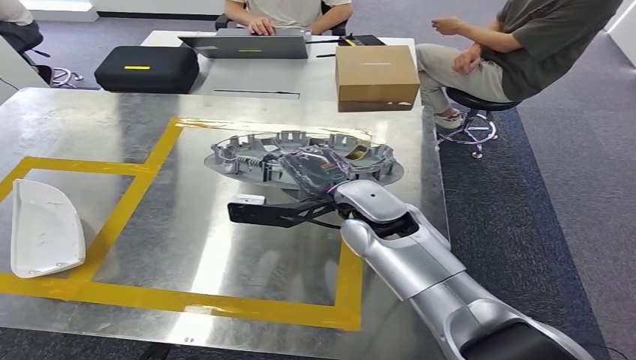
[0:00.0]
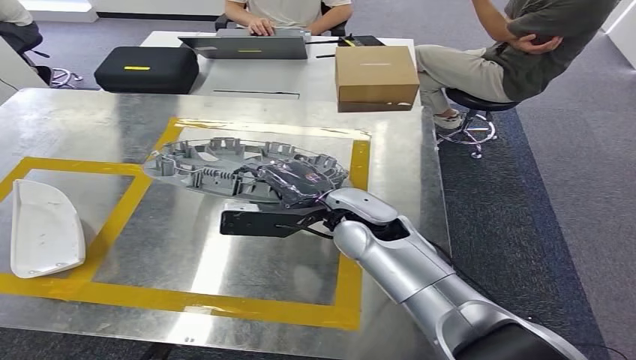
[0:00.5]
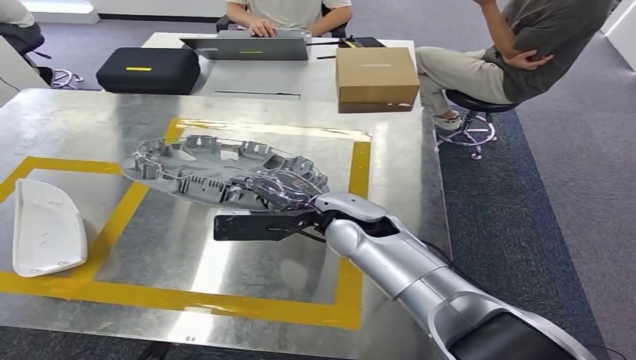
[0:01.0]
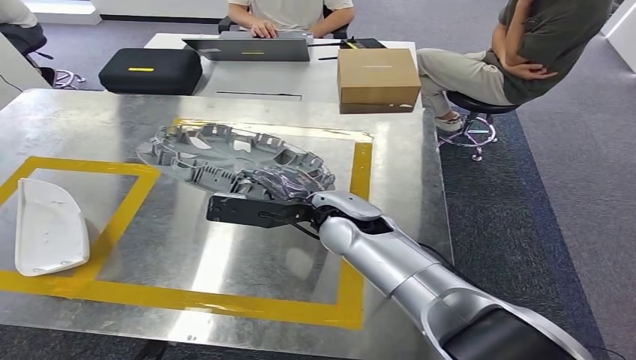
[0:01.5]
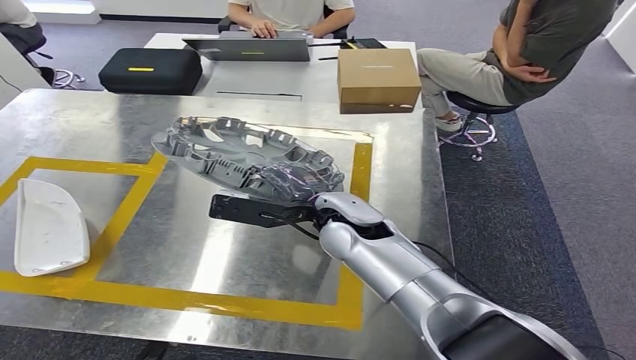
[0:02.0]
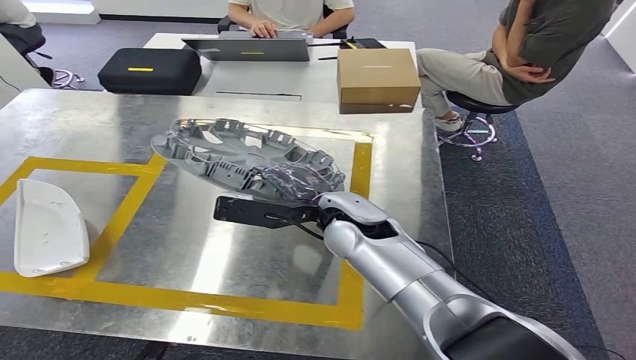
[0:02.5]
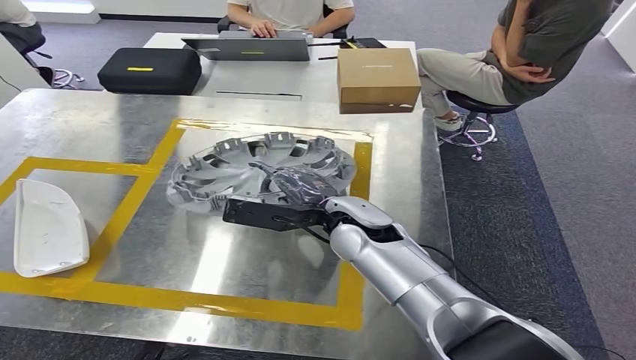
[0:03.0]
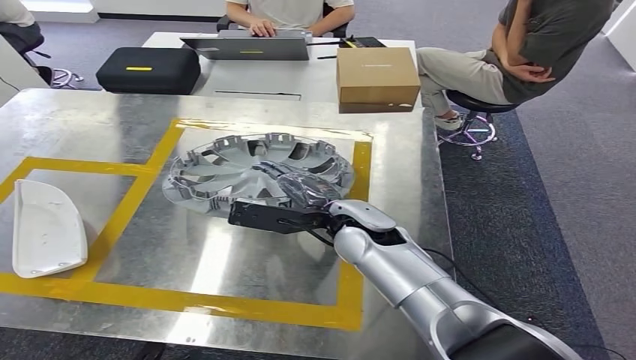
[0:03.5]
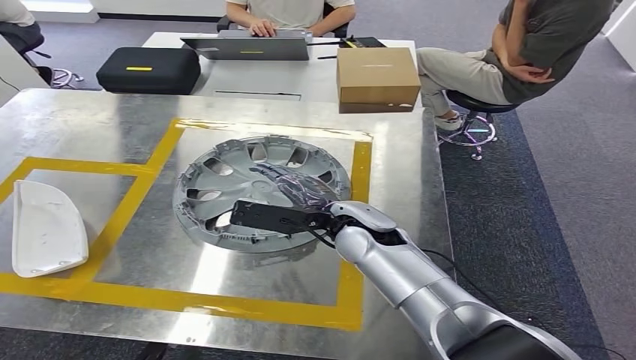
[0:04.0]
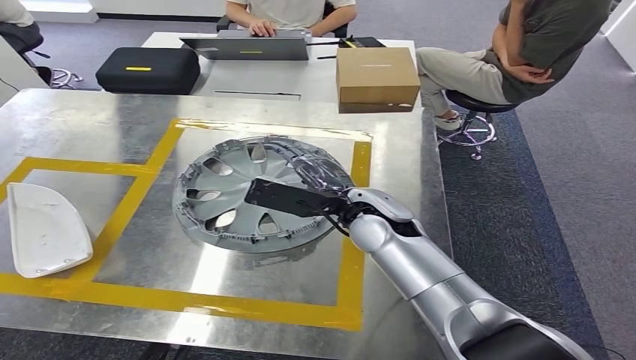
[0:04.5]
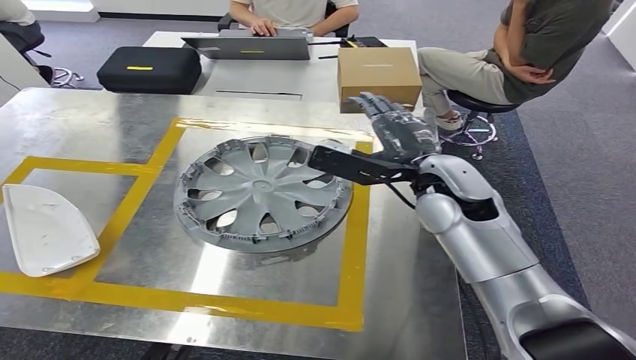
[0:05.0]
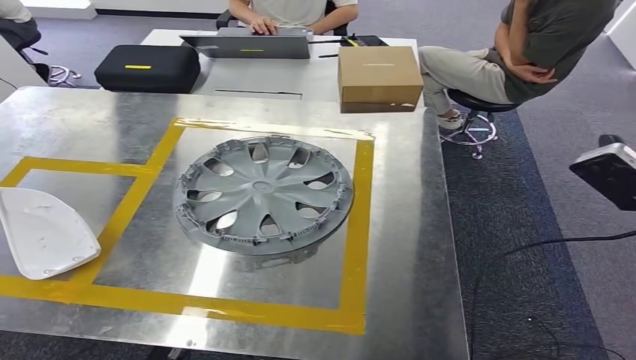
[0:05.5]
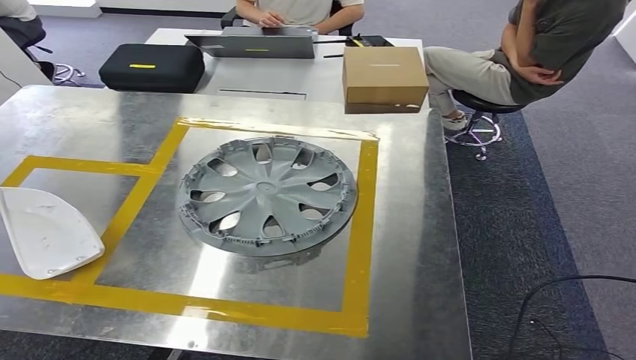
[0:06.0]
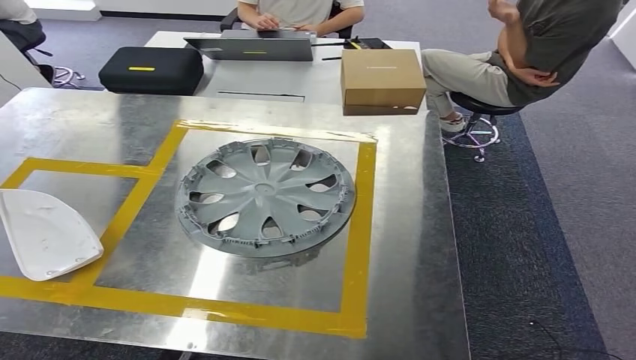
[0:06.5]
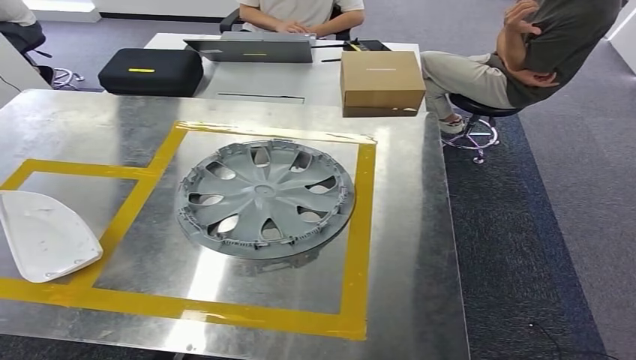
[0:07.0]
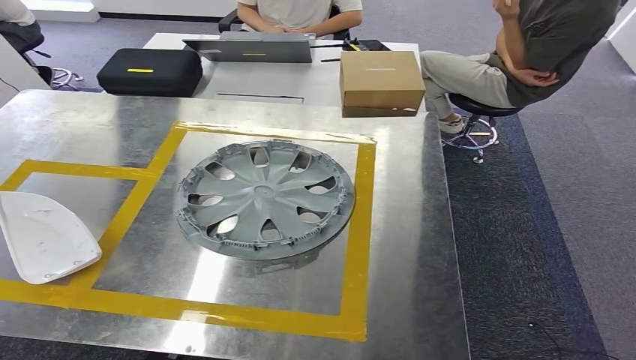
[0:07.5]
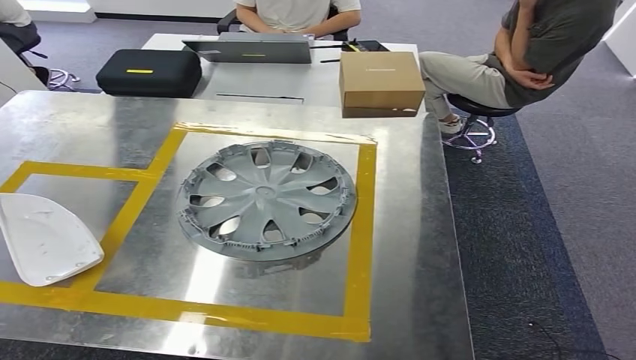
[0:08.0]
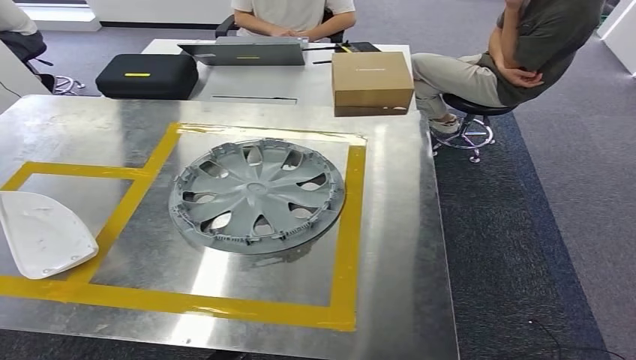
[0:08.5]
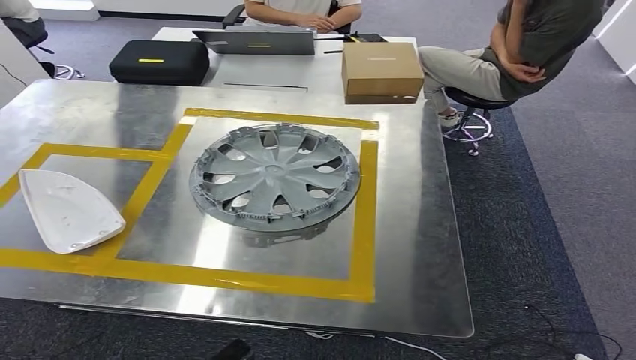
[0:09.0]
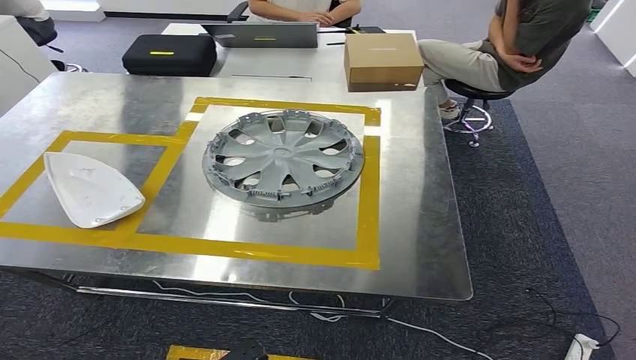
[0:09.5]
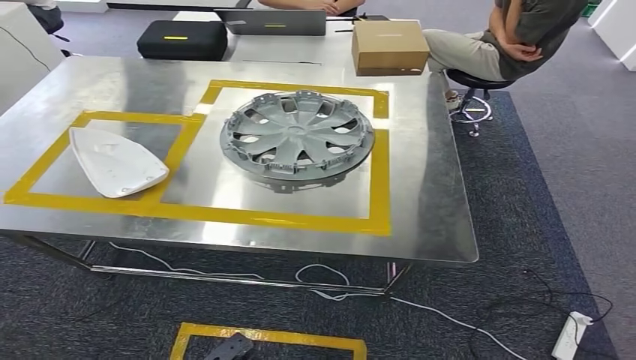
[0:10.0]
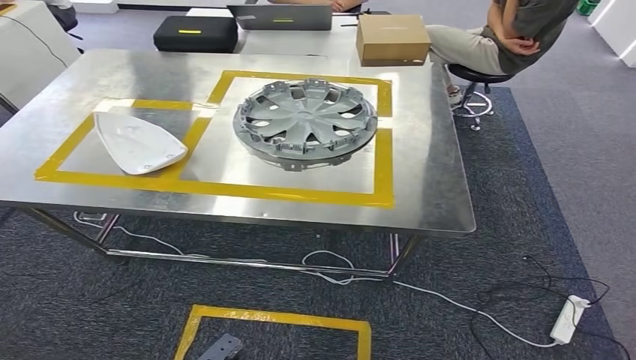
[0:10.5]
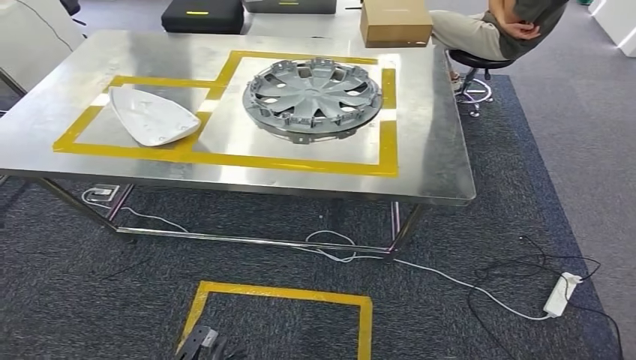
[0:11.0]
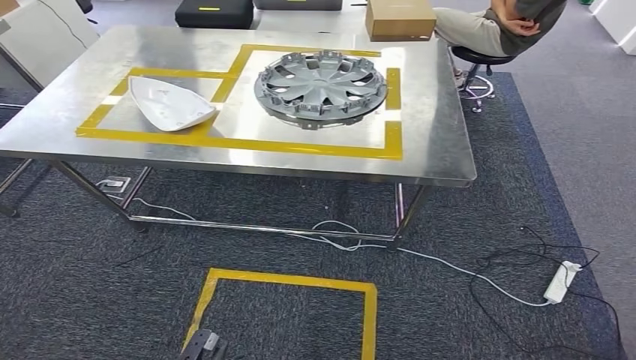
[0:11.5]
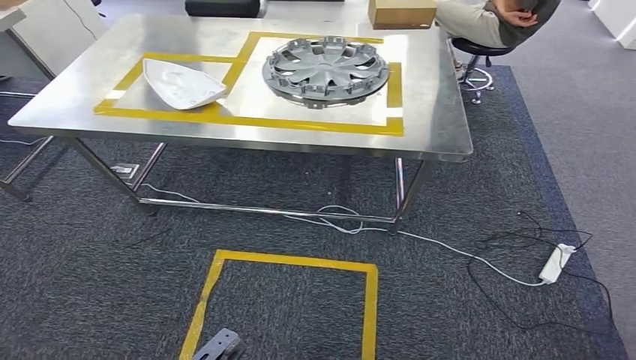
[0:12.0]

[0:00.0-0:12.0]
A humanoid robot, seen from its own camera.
Step, 0:00.0 to 0:06.0: Insert the small component into the corresponding slot on the workbench.
0:02.0 to 0:04.0: The hands make only small movements.
0:06.0 to 0:08.0: The left hand moves to the right, approximately 5 cm. Meanwhile the right hand goes roughly 50 cm downward and to the left.

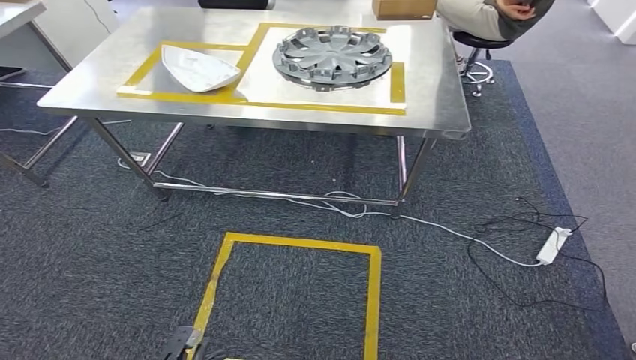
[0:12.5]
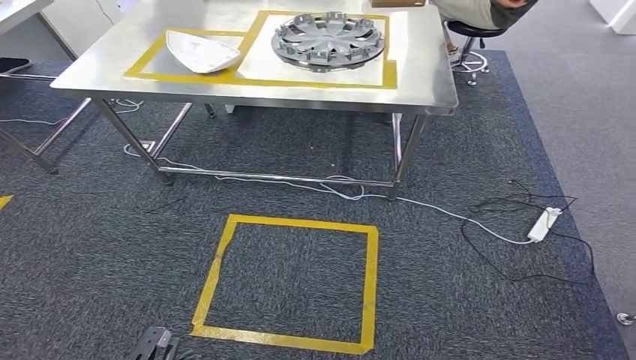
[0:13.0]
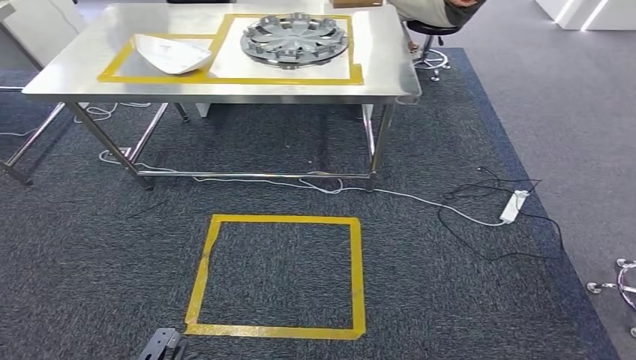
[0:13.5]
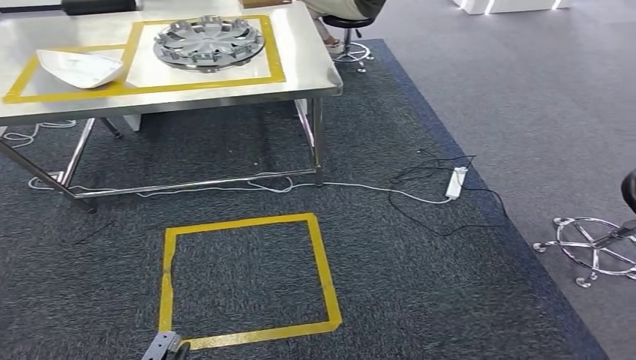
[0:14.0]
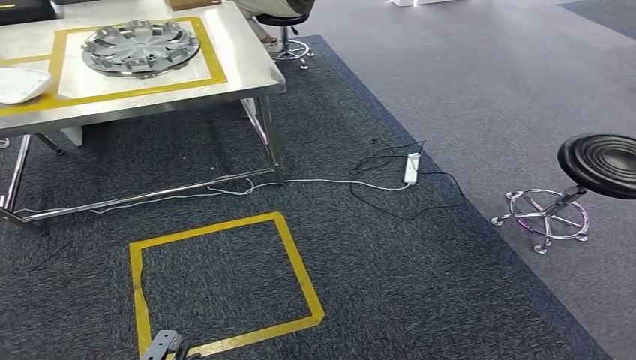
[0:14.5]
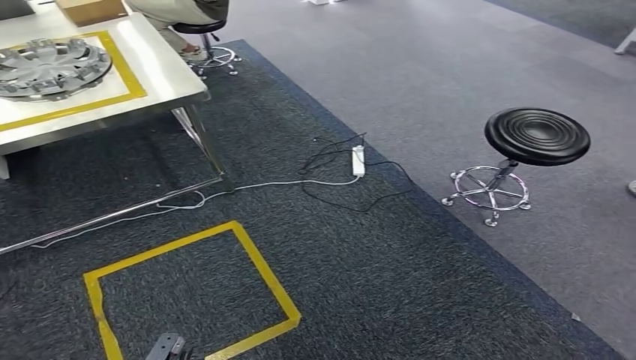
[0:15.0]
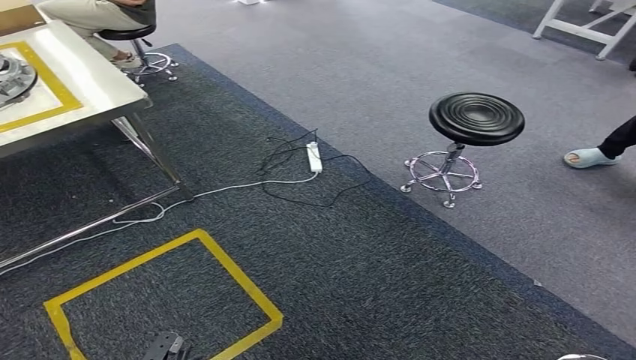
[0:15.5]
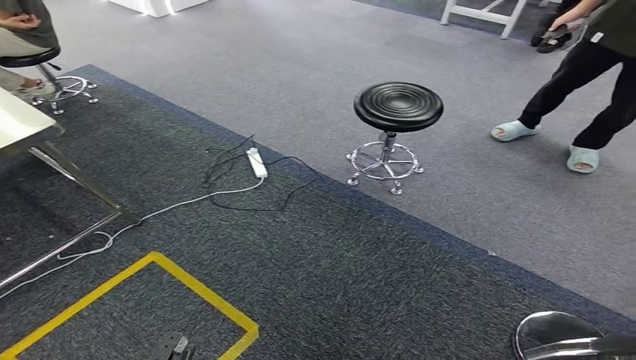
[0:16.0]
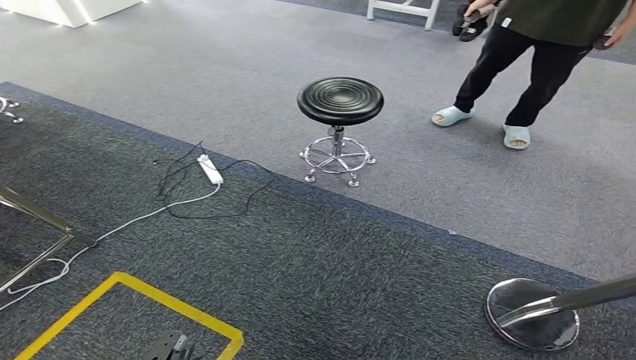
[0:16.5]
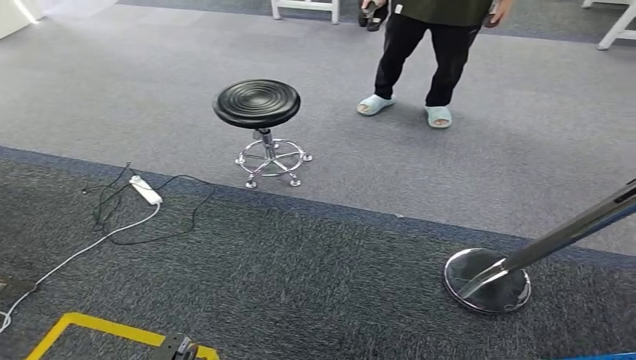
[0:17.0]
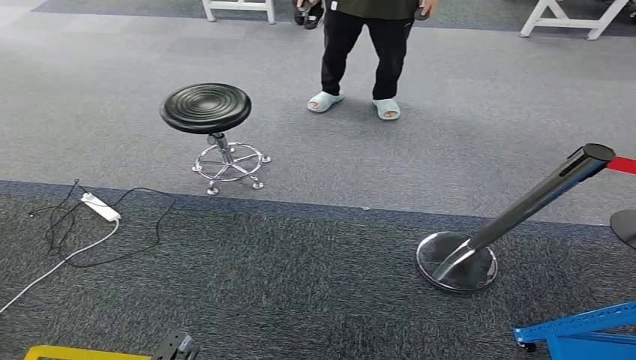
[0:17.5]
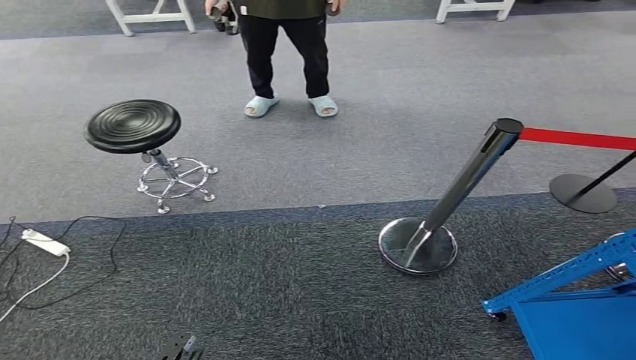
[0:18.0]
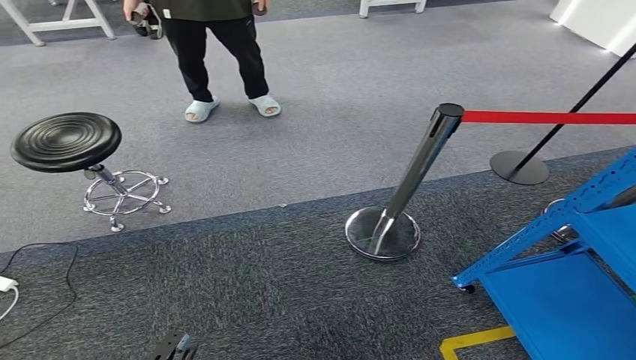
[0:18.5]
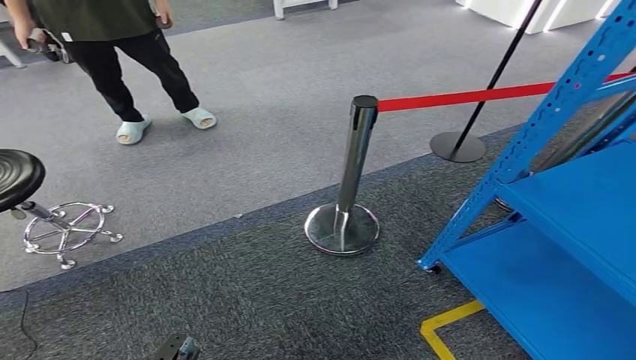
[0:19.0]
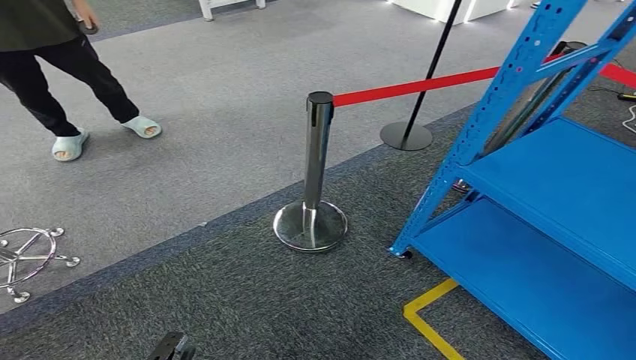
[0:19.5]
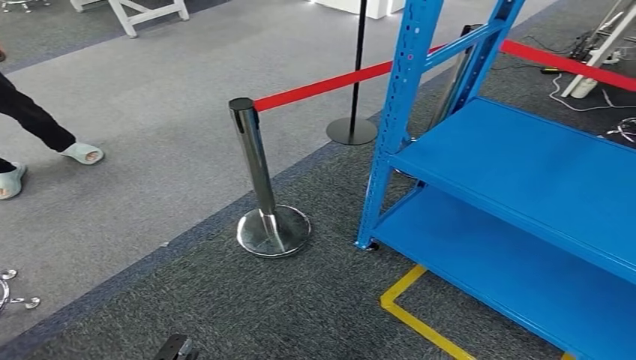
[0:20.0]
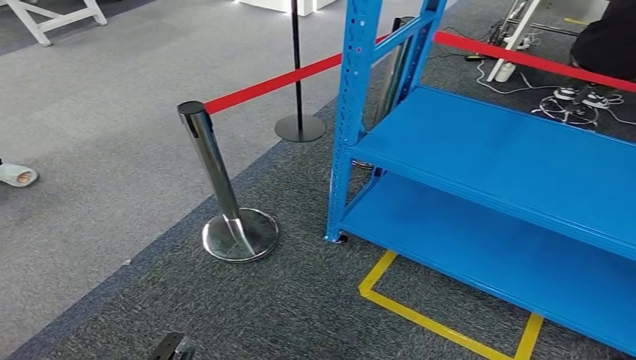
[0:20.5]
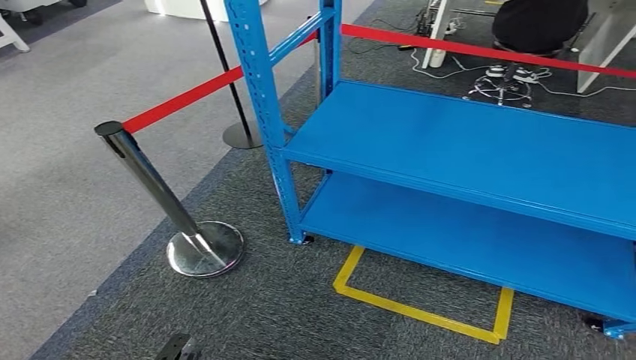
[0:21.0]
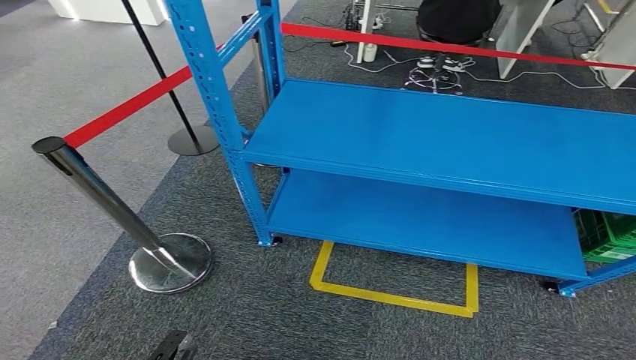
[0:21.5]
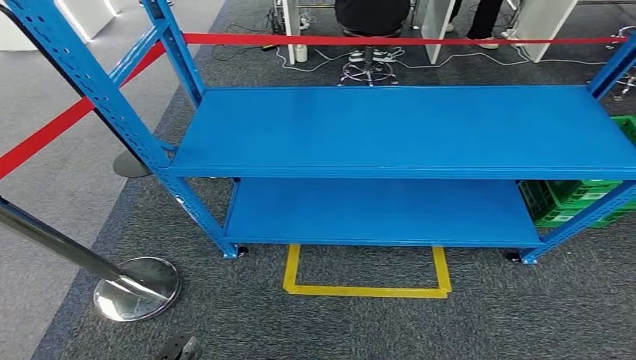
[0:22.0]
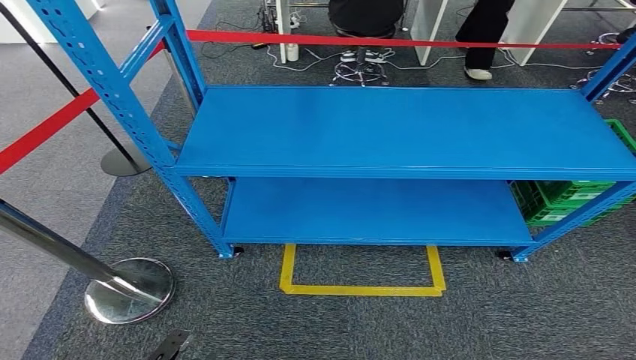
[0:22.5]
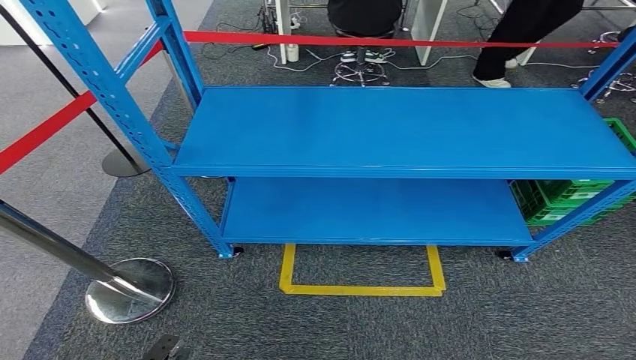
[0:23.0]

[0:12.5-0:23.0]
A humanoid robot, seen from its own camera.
Step, 0:12.5 to 0:23.0: Return to the initial position at the workbench.
